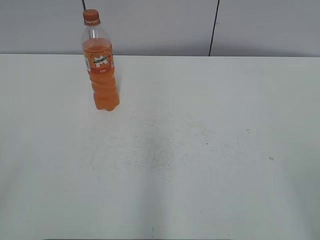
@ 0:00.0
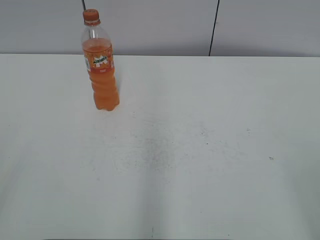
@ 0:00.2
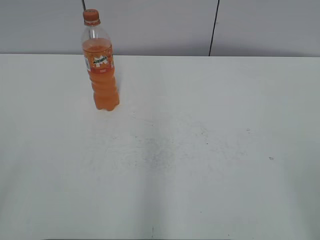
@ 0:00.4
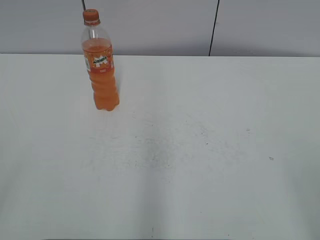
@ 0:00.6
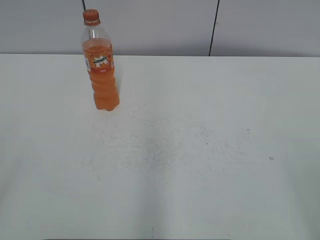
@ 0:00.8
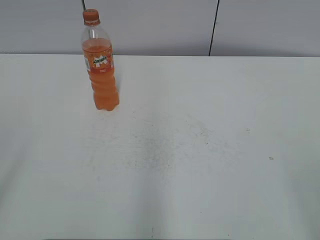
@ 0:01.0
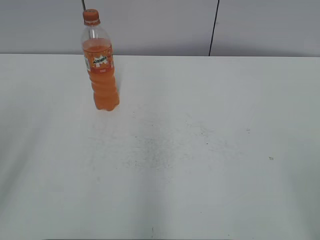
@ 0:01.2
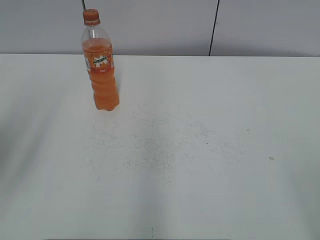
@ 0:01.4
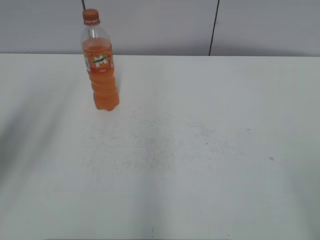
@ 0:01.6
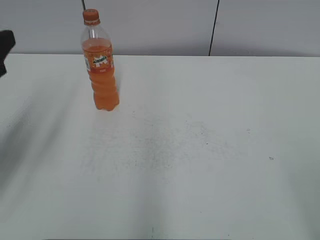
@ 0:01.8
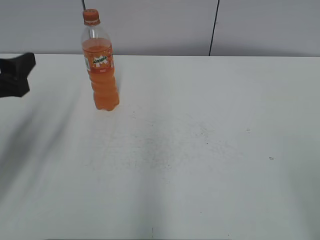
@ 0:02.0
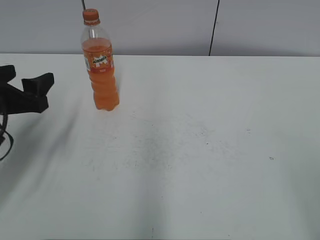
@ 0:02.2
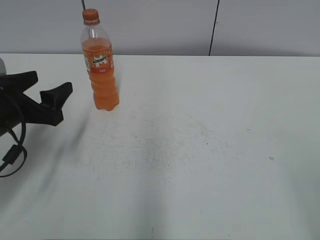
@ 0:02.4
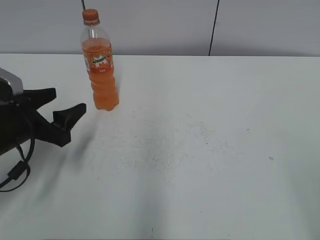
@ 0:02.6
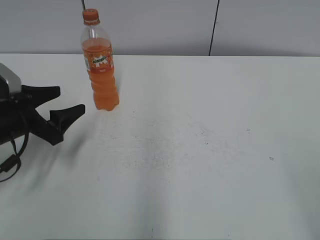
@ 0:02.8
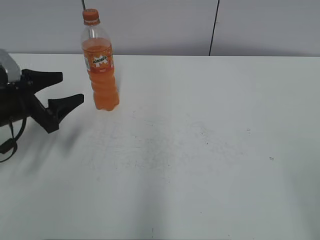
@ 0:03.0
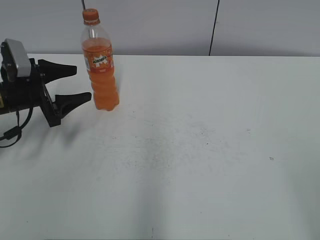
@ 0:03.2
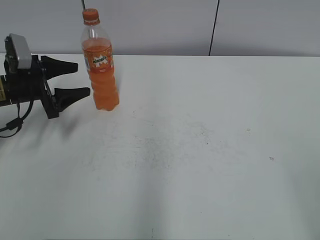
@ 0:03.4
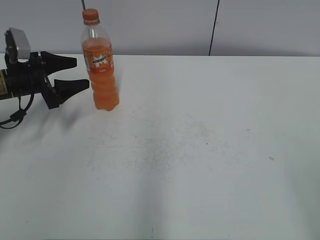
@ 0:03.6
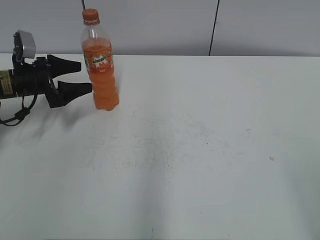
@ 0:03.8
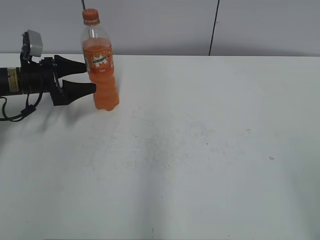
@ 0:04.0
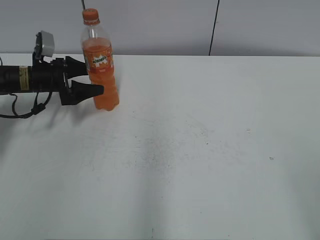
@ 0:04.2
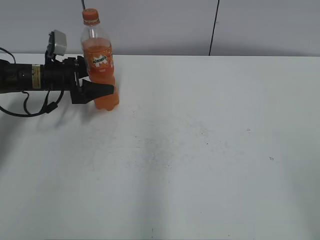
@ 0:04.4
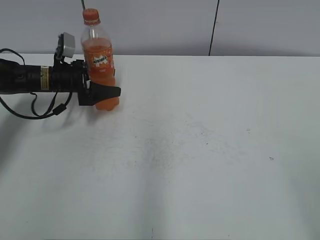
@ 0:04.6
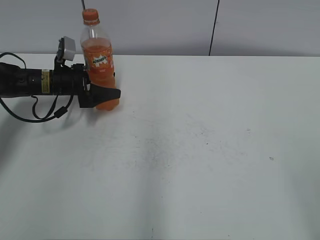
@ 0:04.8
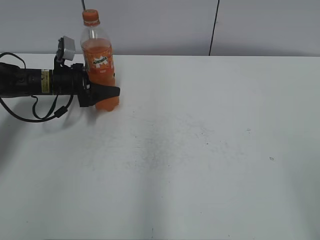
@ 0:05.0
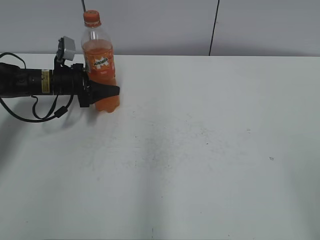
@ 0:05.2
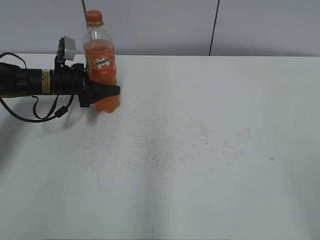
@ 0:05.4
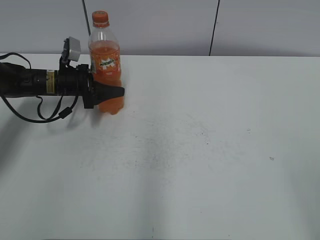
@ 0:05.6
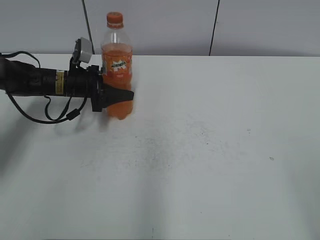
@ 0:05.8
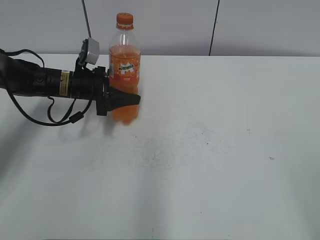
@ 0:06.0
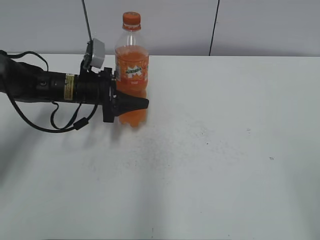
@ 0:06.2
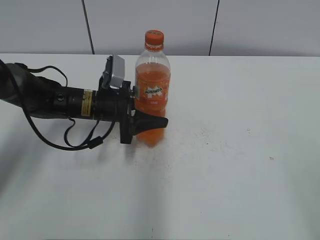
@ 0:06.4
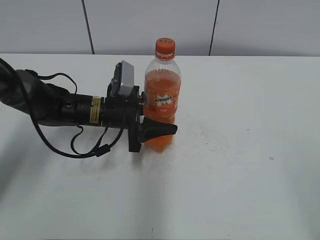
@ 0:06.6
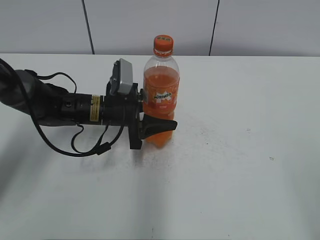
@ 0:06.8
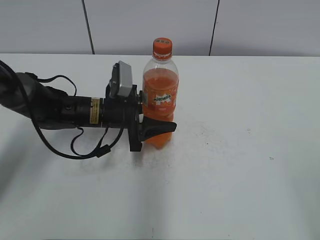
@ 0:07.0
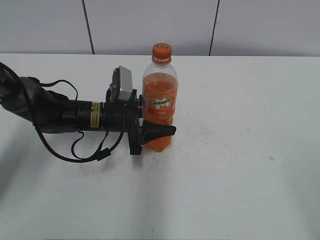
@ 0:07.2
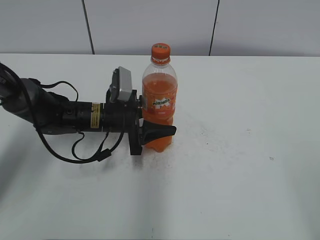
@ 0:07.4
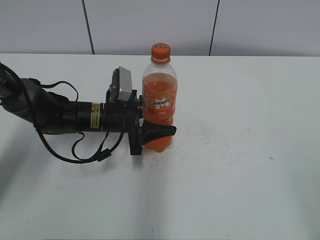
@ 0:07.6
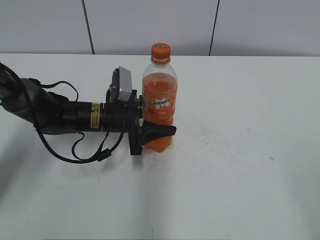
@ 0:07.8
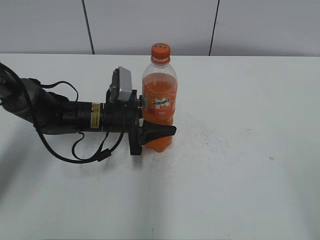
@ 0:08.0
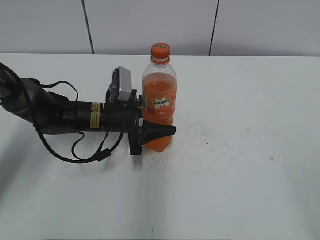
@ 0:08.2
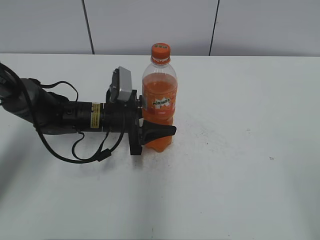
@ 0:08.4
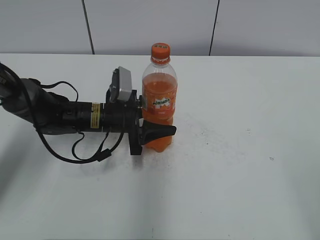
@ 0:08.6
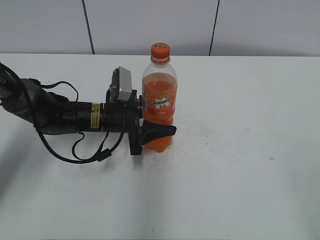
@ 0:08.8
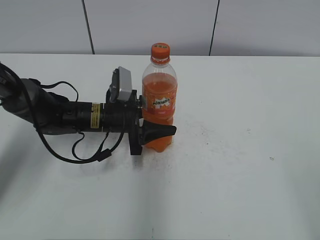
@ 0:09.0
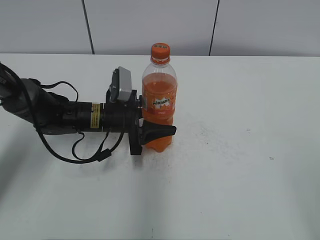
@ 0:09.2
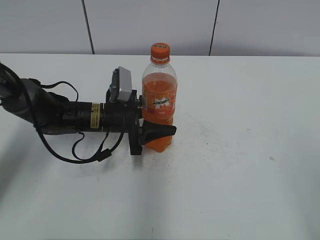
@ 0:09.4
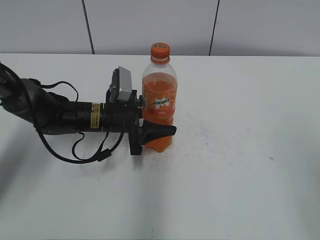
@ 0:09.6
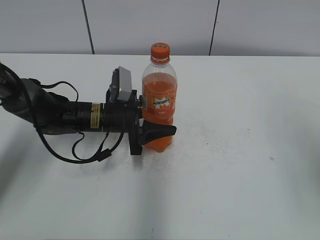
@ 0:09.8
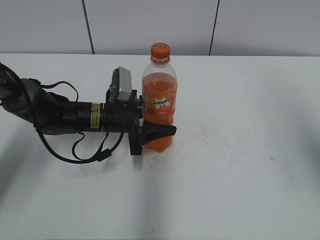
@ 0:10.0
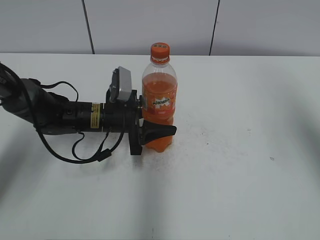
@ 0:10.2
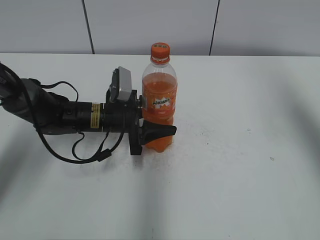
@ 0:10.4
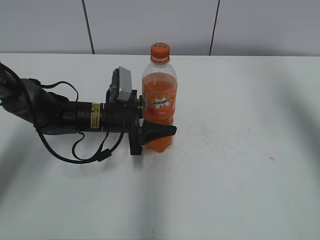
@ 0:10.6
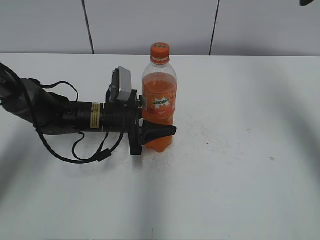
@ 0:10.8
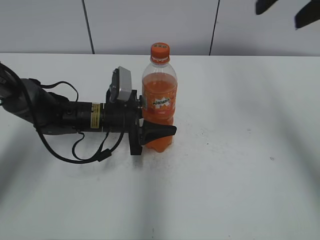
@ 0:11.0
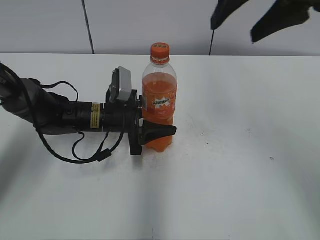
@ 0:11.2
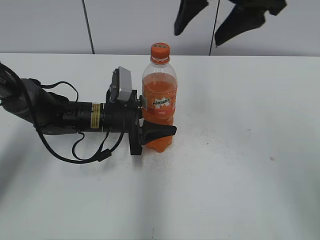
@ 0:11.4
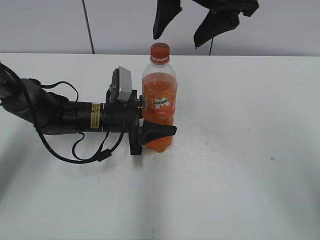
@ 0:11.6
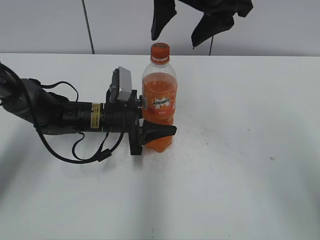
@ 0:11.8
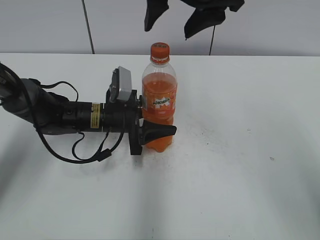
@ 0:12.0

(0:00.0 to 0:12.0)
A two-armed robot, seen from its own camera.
Step, 0:00.0 - 0:05.2: Grab the Mirinda with the left hand.
Step, 0:05.6 - 0:07.6: Move the Mirinda from left to right.
0:01.6 - 0:03.0: The left gripper goes some 20 cm downward and forward.
0:03.0 - 0:04.4: The left gripper travels forward by roughly 15 cm.
0:04.4 - 0:06.0: The left gripper travels to the right by about 5 cm, and closes its fingers.
0:06.0 - 0:07.6: The left gripper heads to the right and backward, covering some 10 cm.
0:07.6 - 0:09.0: The two grippers keep their place.
0:09.0 - 0:10.4: The right gripper heads forward and upward, covering approximately 30 cm.
0:10.4 - 0:12.0: The right gripper goes roughly 25 cm to the left.

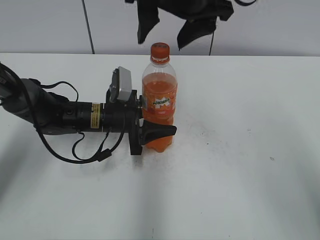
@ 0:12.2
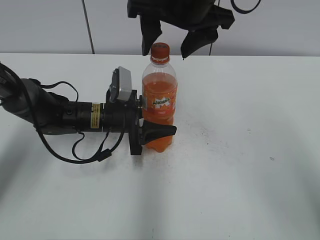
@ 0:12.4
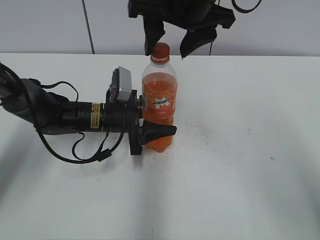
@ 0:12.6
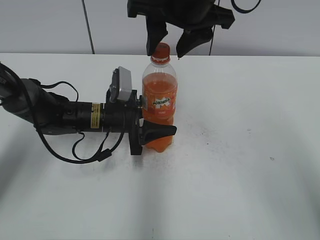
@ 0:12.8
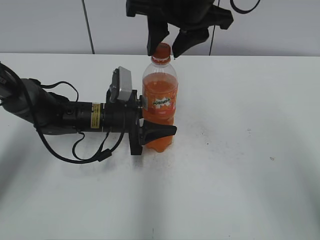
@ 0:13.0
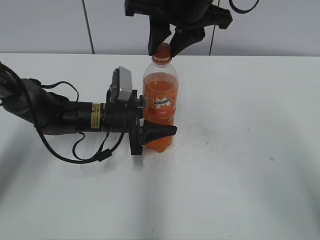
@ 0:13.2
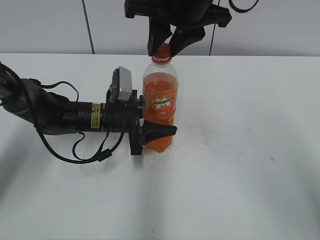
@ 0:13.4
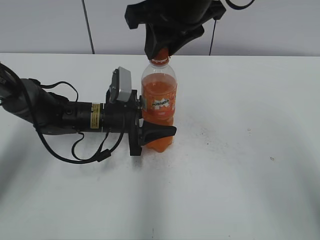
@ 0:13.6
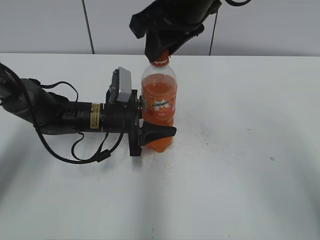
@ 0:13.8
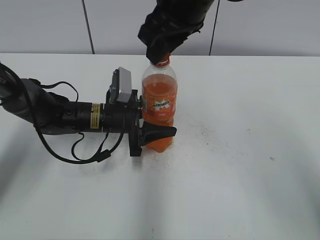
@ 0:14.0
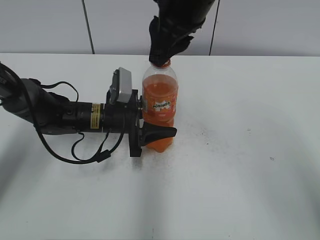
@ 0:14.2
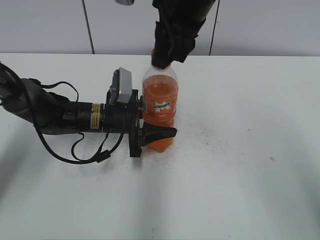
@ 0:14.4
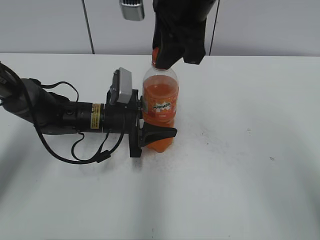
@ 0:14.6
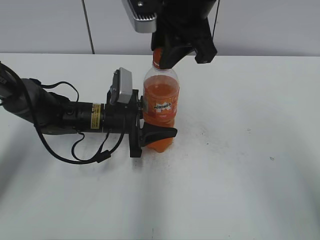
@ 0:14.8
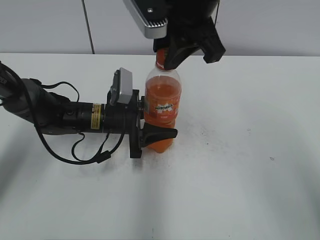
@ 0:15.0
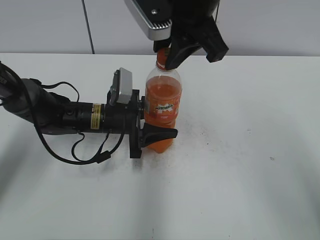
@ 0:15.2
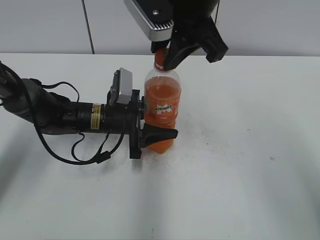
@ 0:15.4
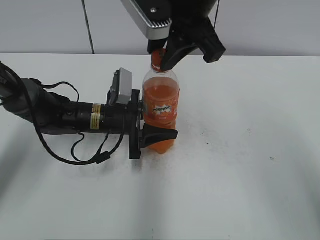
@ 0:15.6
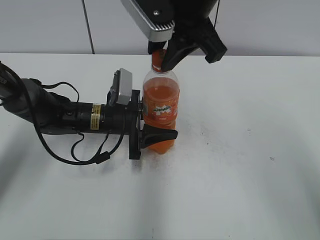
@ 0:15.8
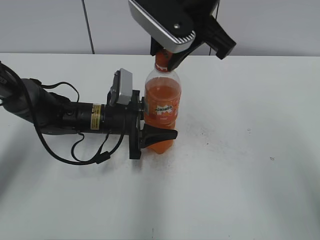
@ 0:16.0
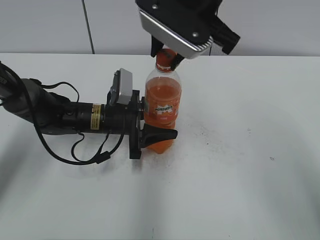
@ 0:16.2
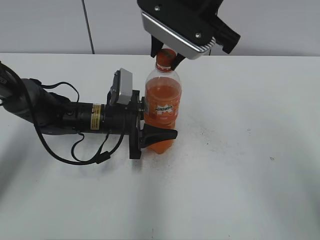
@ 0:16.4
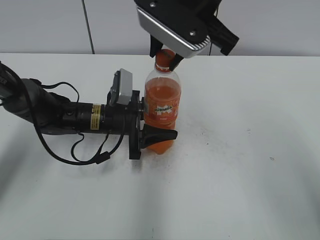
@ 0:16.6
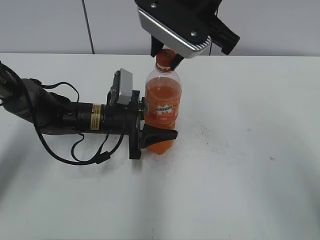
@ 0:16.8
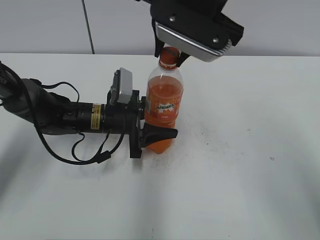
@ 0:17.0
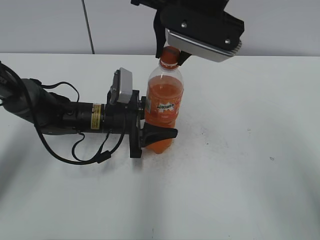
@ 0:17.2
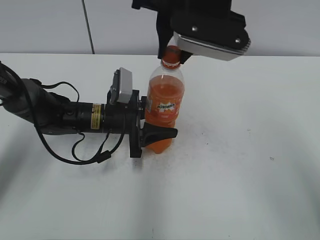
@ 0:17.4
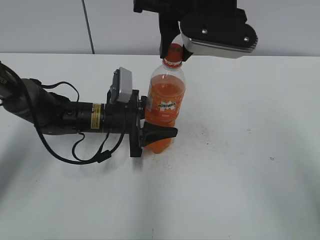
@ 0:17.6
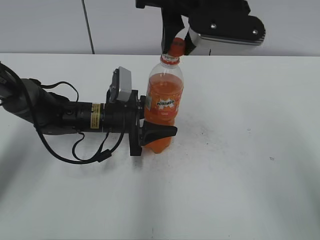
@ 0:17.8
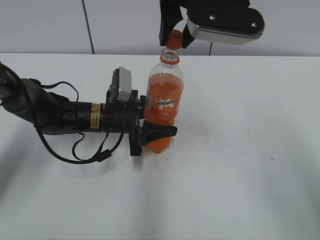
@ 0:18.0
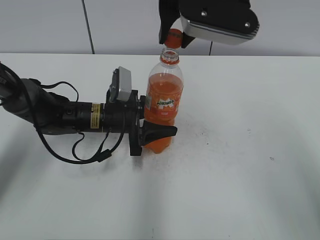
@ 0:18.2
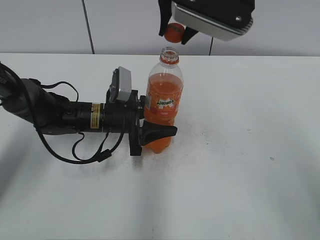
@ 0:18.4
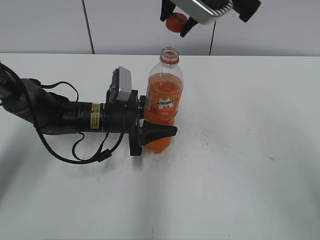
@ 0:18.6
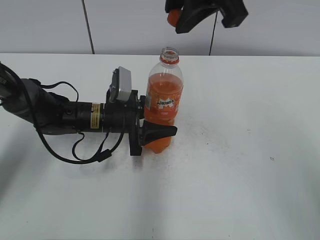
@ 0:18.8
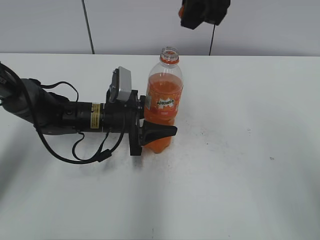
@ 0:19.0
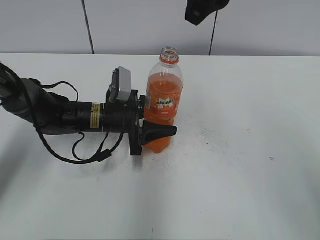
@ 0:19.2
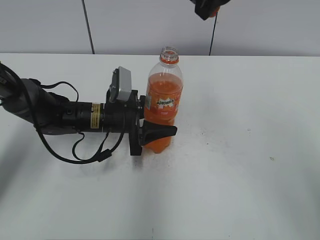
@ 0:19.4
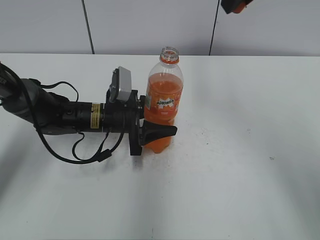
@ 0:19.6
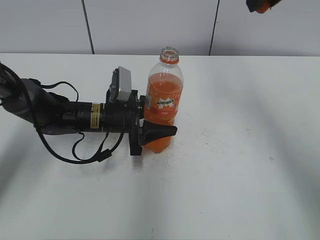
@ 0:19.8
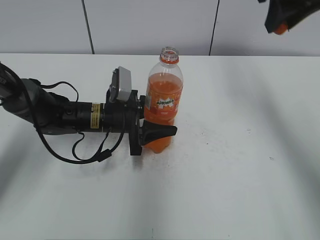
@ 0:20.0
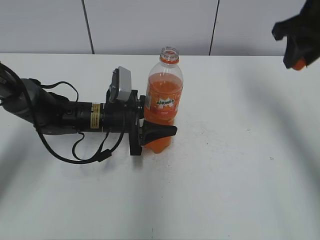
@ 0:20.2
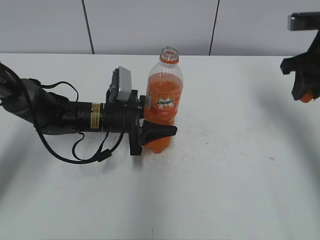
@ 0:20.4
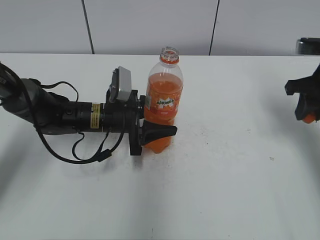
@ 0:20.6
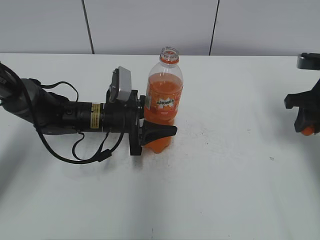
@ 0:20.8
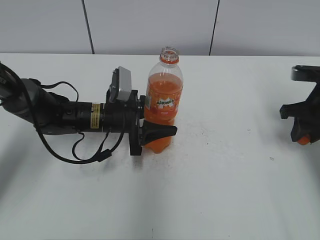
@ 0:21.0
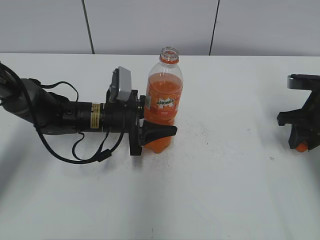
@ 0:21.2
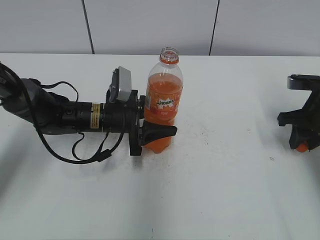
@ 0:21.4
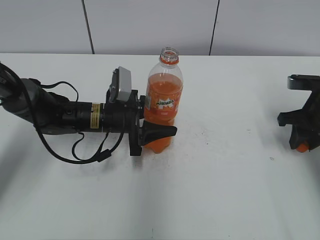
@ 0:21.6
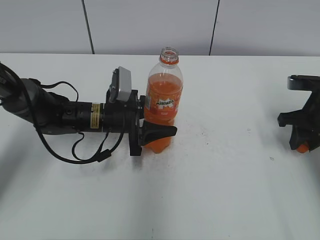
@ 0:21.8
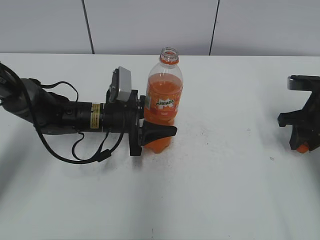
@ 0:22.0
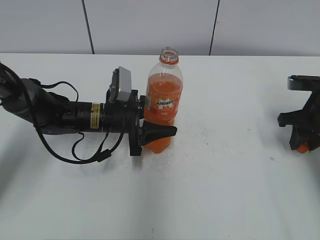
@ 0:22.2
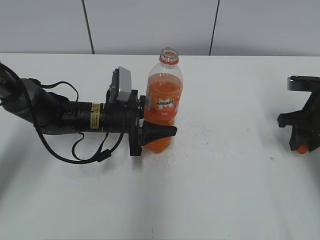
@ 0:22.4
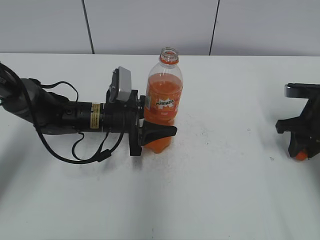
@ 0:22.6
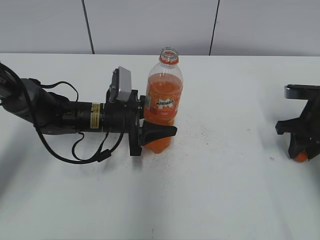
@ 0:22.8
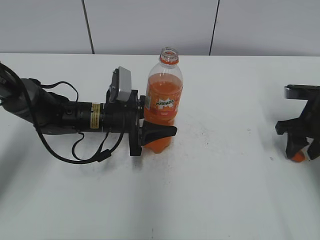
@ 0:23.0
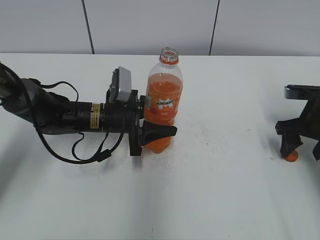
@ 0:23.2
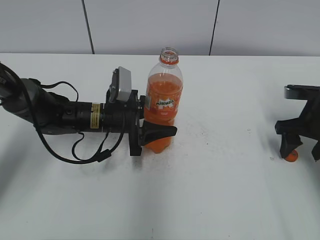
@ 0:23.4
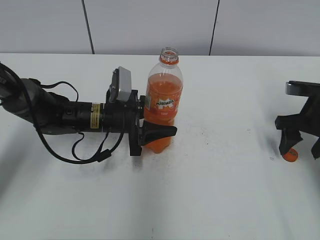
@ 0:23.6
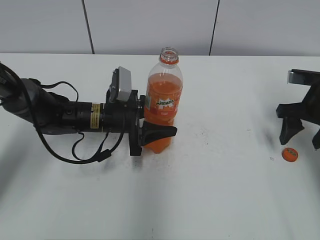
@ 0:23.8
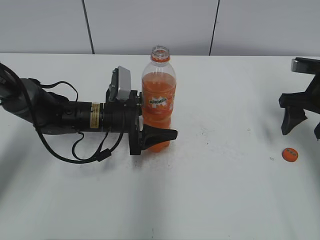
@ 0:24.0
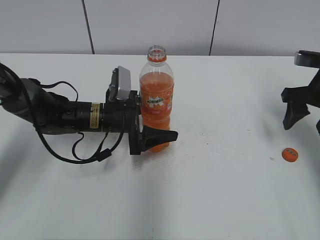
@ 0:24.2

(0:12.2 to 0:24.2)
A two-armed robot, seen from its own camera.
Step, 0:18.2 - 0:23.0: Place the bottle cap on the right.
0:12.2 - 0:13.8: The right gripper closes.
0:18.2 - 0:19.8: The right gripper shifts some 10 cm to the right.
0:19.8 - 0:21.2: The right gripper is displaced downward and to the right by approximately 25 cm.
0:21.2 - 0:22.6: Neither gripper changes place.
0:22.6 - 0:24.2: The right gripper heads upward, covering some 5 cm, and opens up. The left gripper opens its fingers.
